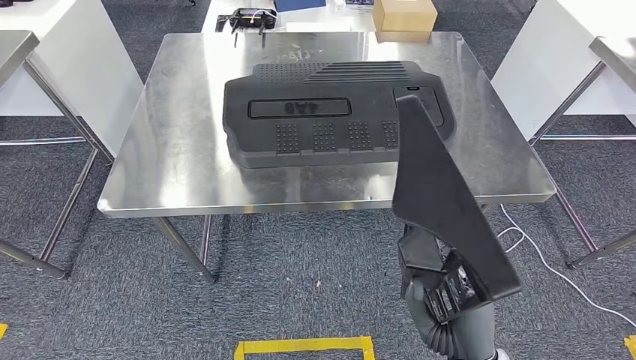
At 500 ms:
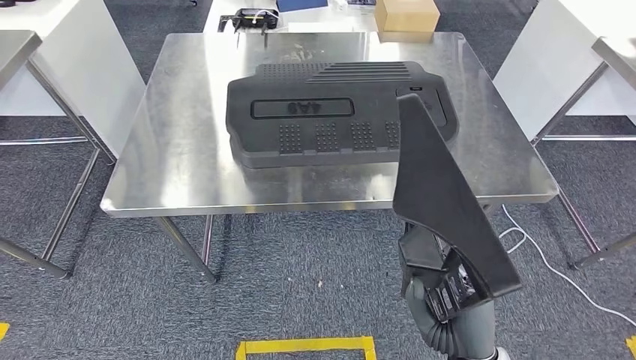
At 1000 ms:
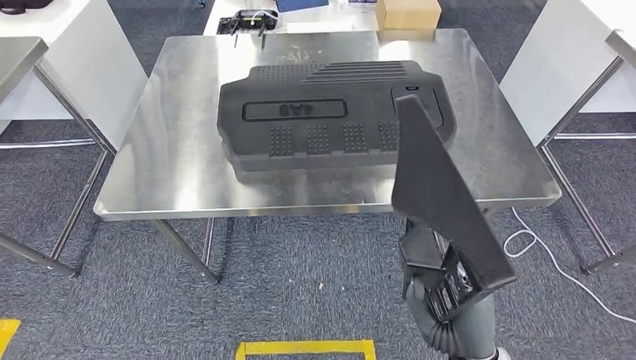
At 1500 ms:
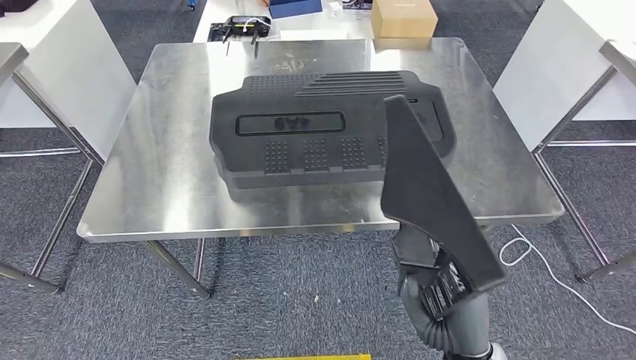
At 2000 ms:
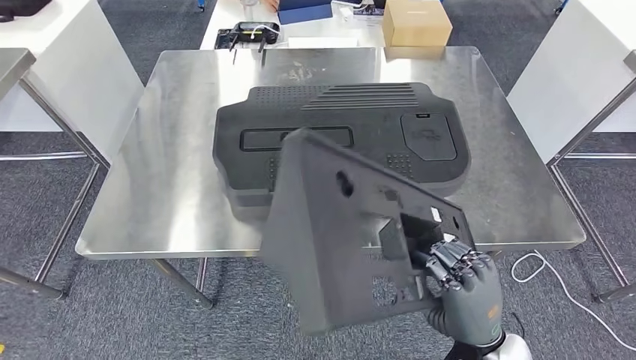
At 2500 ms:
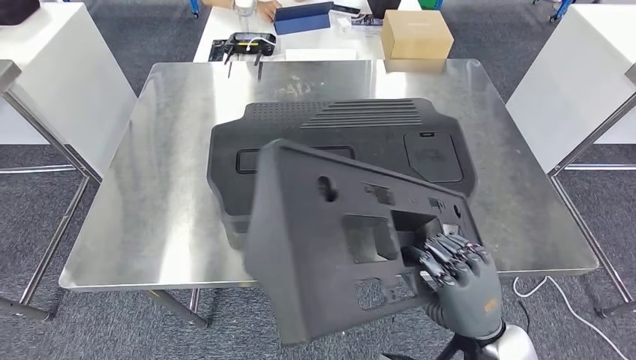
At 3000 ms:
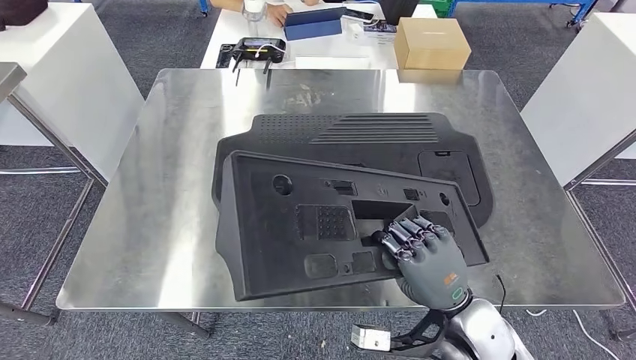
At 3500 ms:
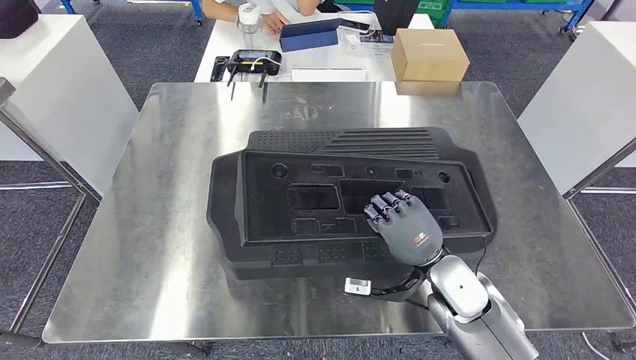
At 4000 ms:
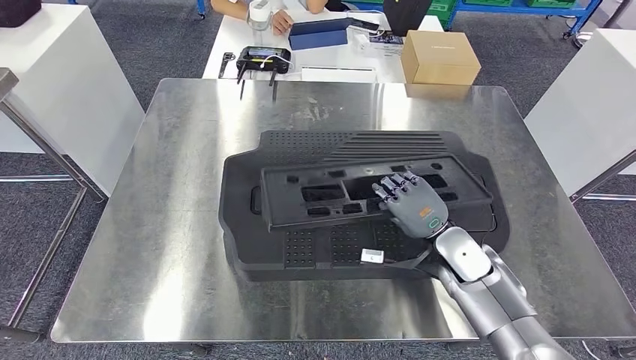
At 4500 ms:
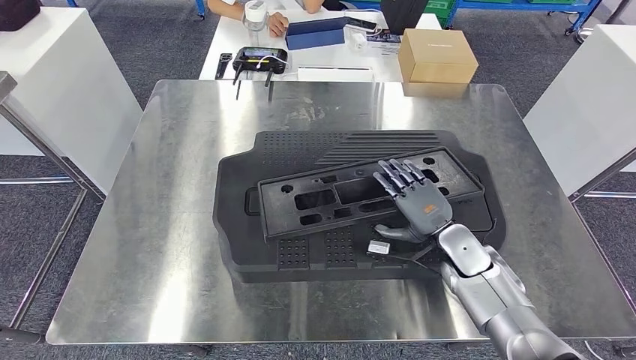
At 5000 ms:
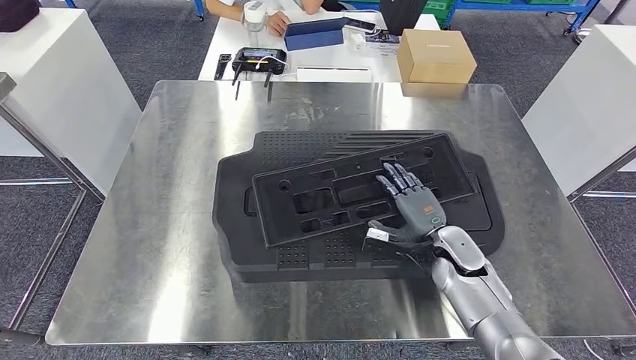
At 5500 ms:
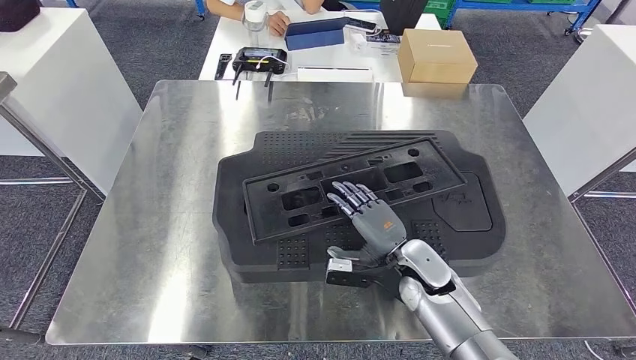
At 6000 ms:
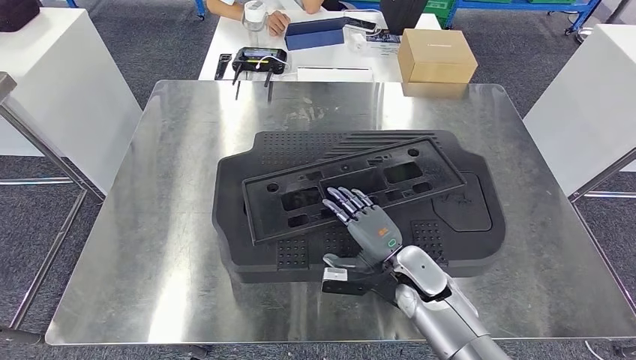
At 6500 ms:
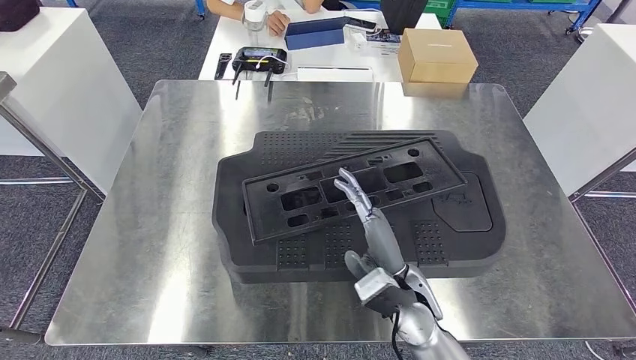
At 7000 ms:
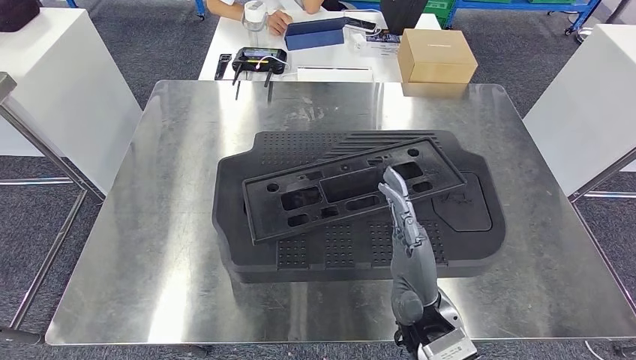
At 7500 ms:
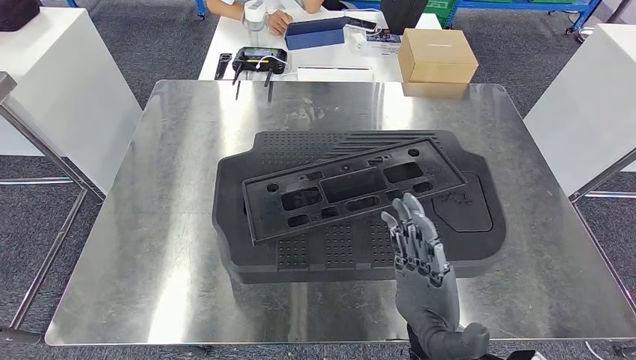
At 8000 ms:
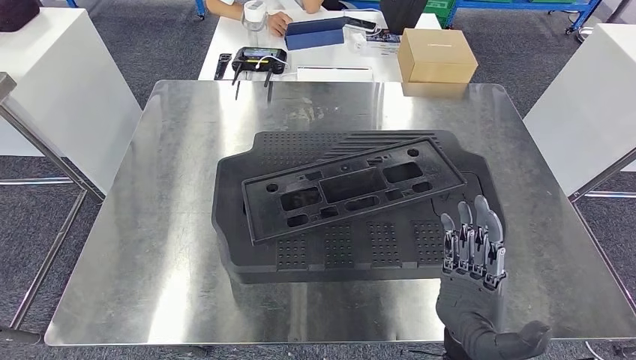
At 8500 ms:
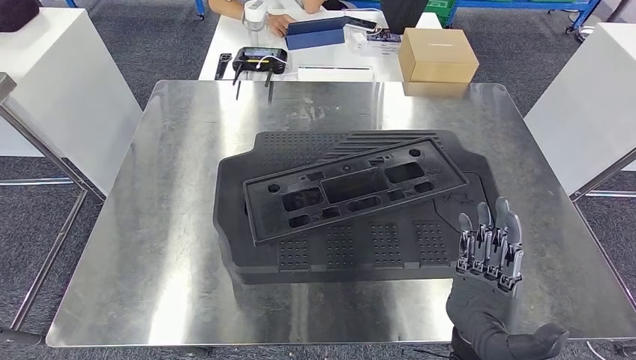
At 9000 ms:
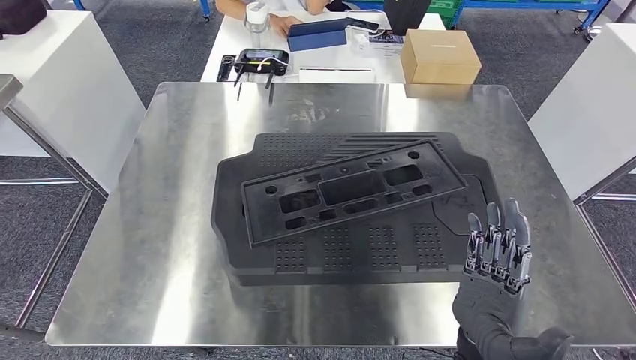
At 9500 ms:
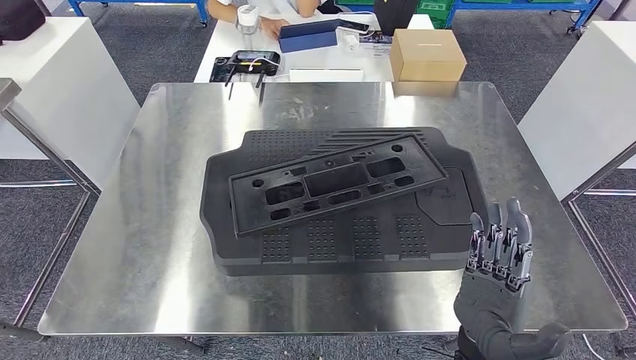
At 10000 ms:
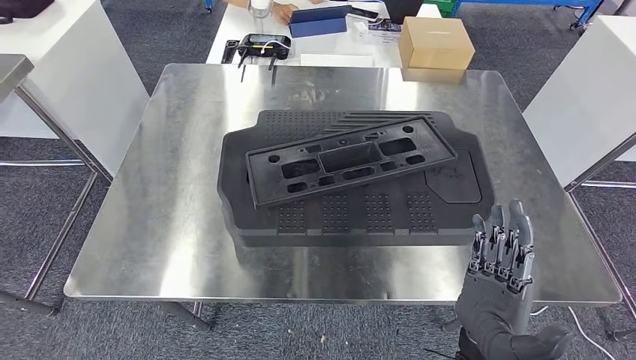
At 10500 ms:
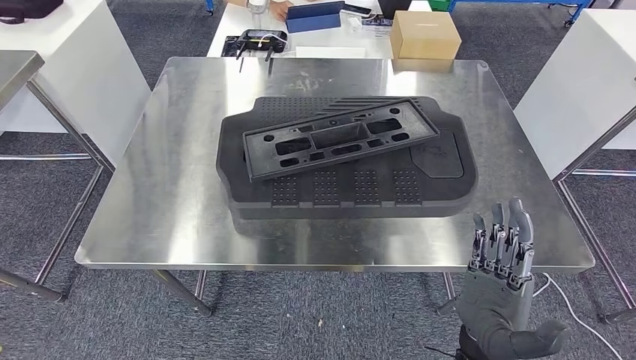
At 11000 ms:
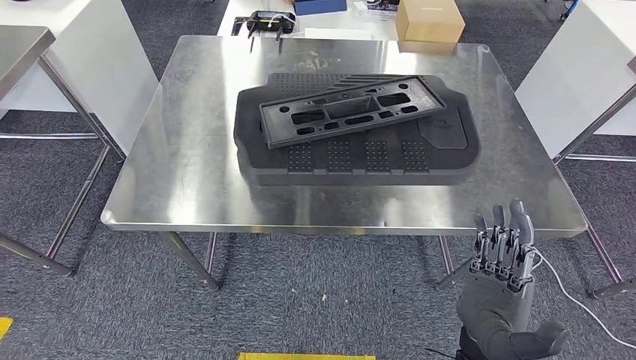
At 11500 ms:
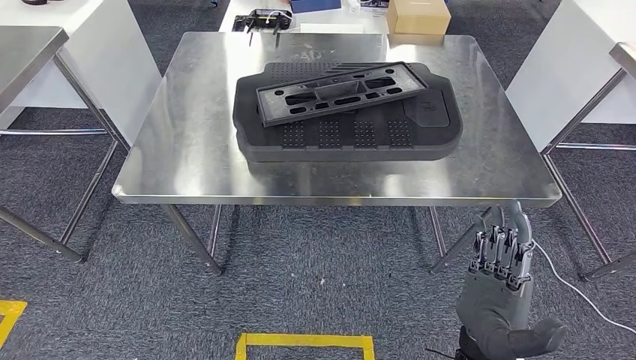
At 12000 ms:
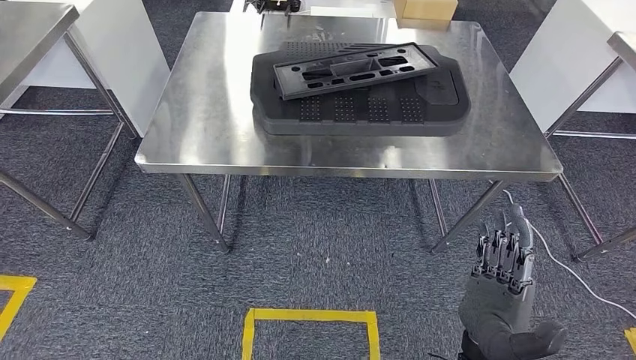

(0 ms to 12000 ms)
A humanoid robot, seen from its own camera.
Step, 0 ms - 7500 ms: Insert the large material into the corresponding slot on the workbench.
4000 ms - 6000 ms: The right hand moves to the left, about 10 cm.
6000 ms - 8000 ms: The right hand is displaced backward and upward by approximately 20 cm.

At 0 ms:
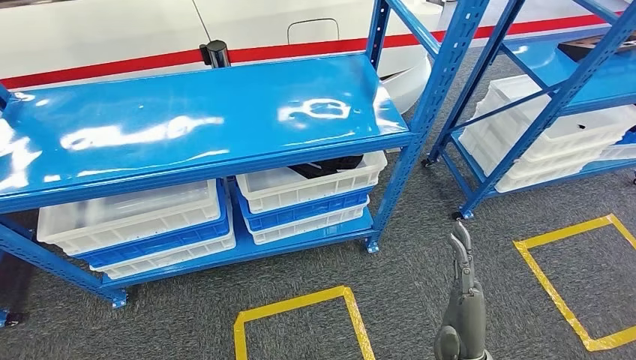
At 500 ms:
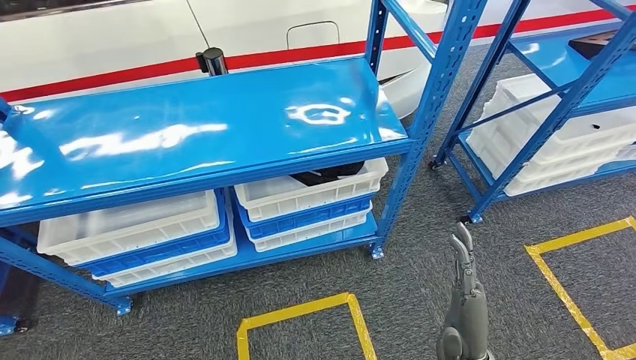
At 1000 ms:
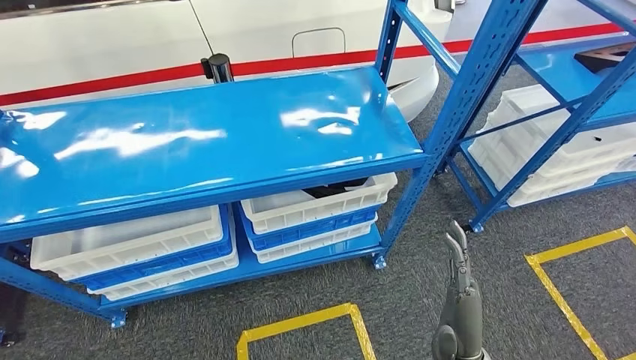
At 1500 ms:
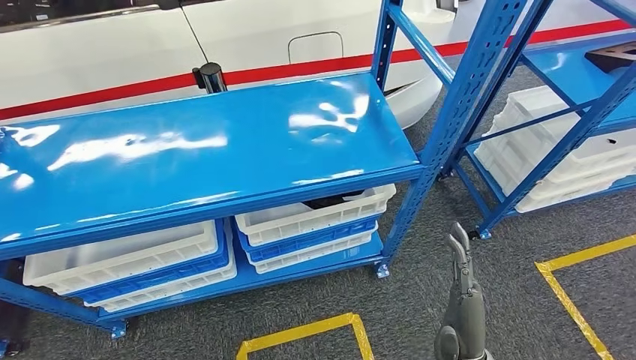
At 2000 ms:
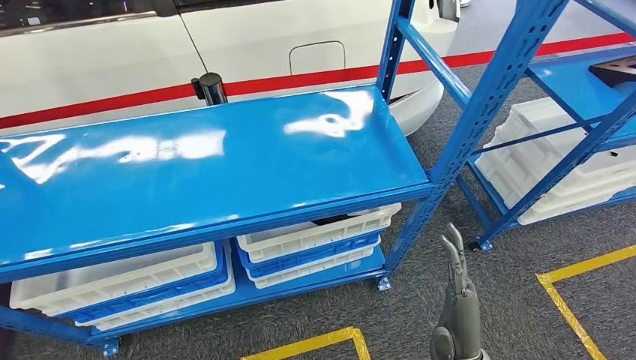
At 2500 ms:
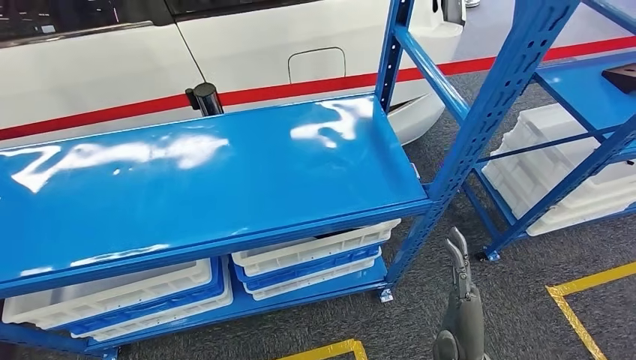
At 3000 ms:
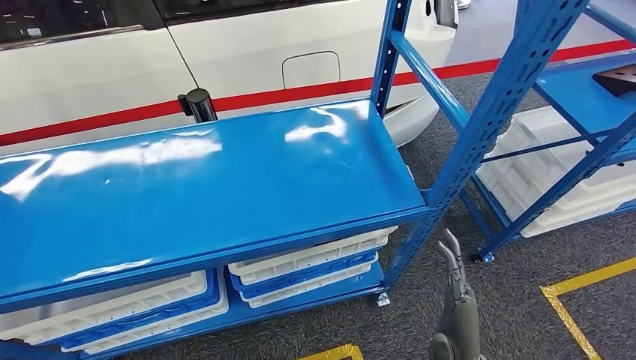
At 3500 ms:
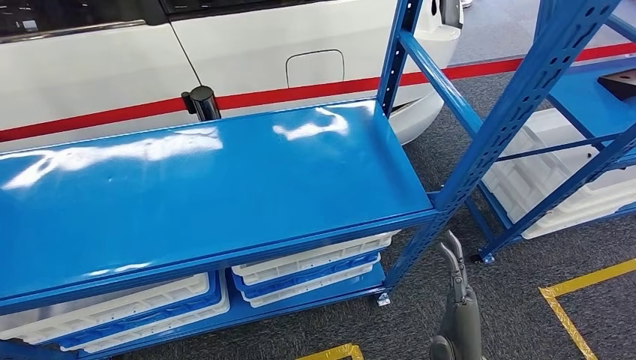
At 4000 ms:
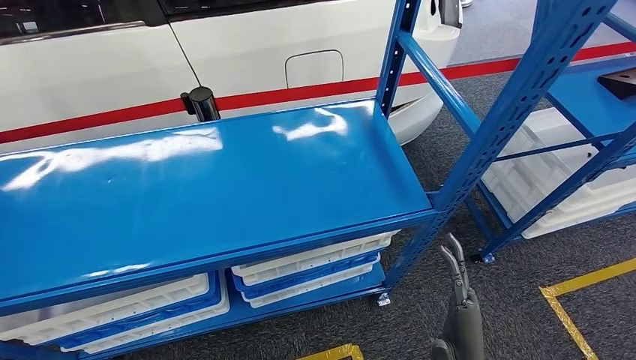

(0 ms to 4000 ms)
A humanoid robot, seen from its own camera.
Step, 0 ms - 4000 ms: Move to the initial position of the shelf.
